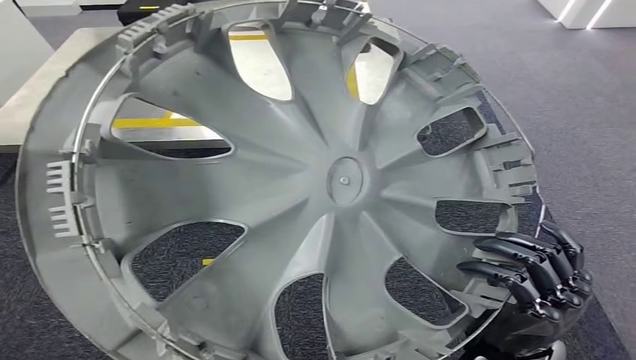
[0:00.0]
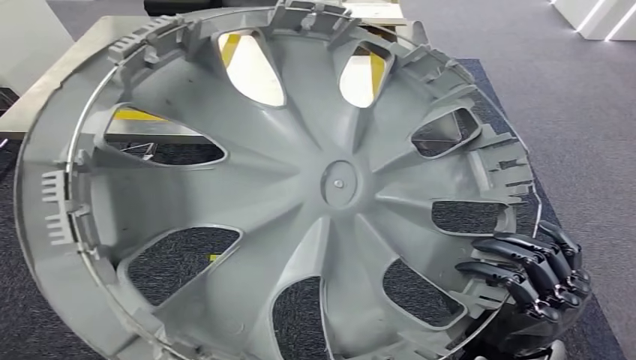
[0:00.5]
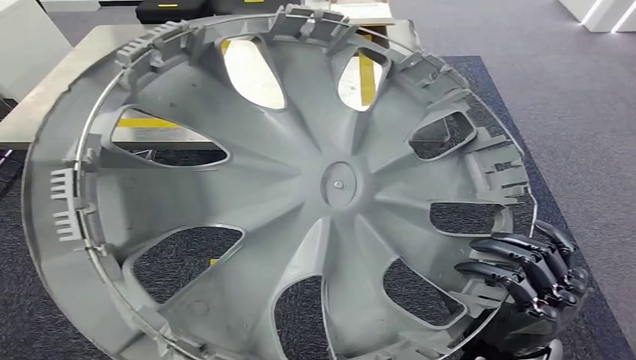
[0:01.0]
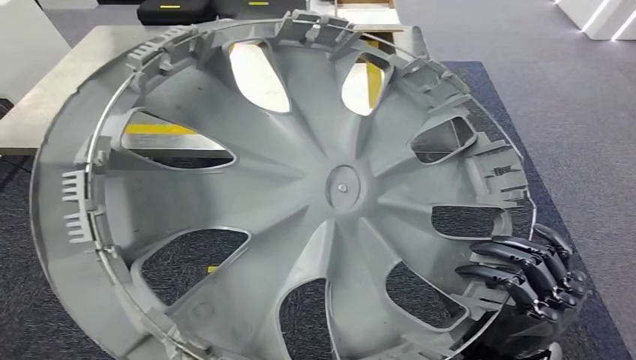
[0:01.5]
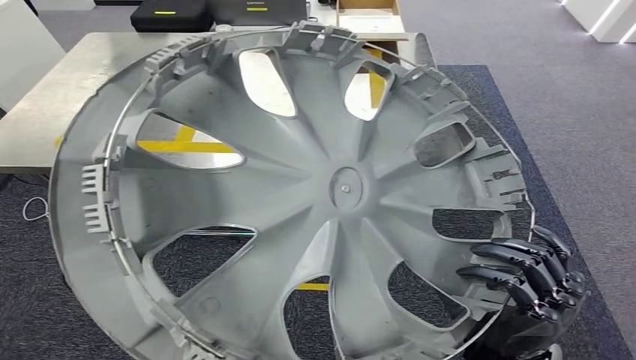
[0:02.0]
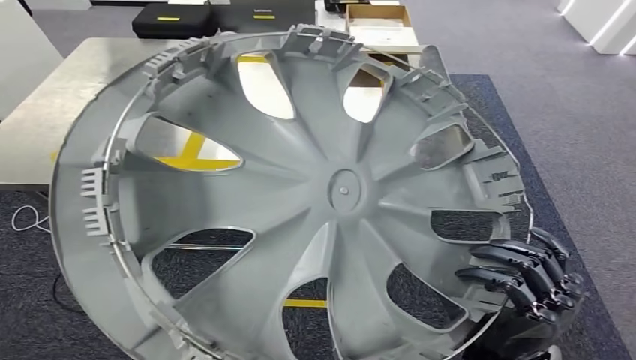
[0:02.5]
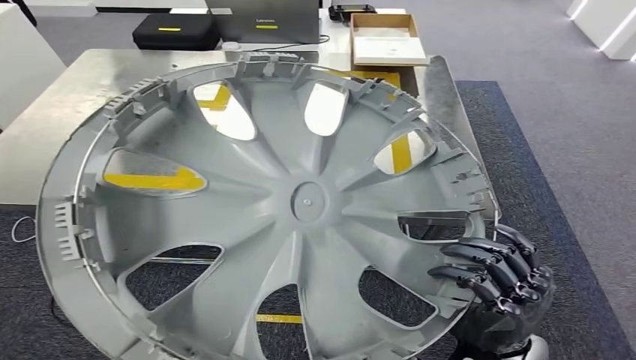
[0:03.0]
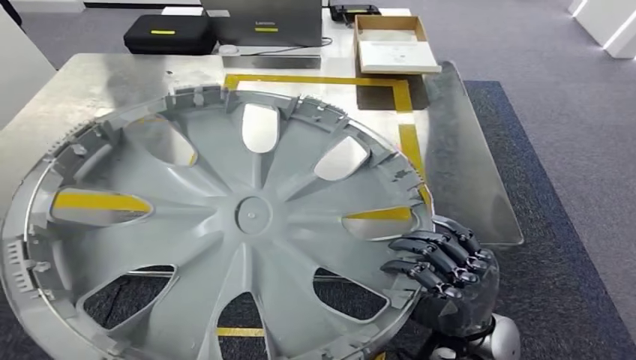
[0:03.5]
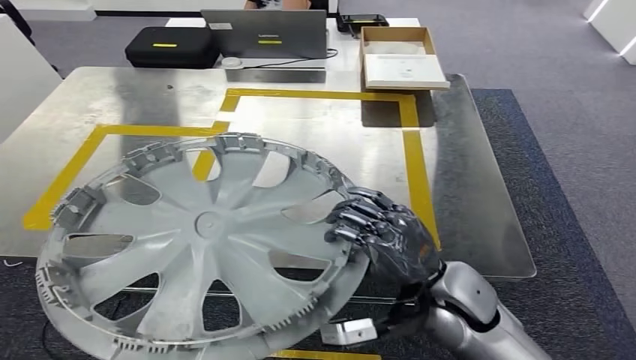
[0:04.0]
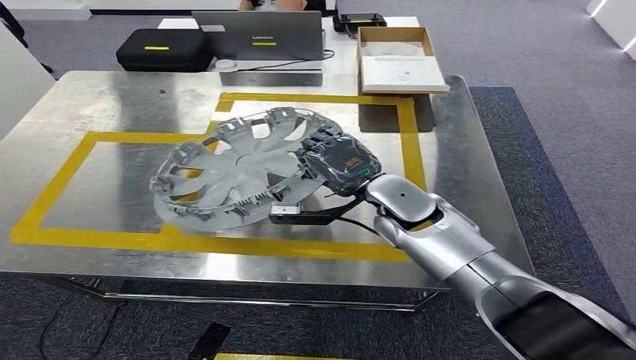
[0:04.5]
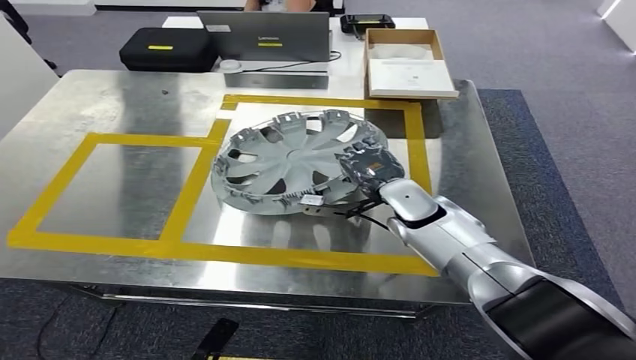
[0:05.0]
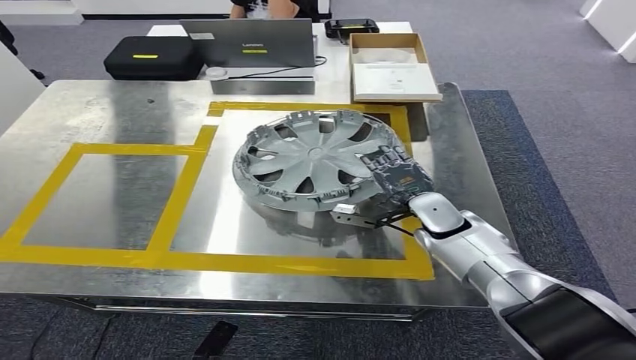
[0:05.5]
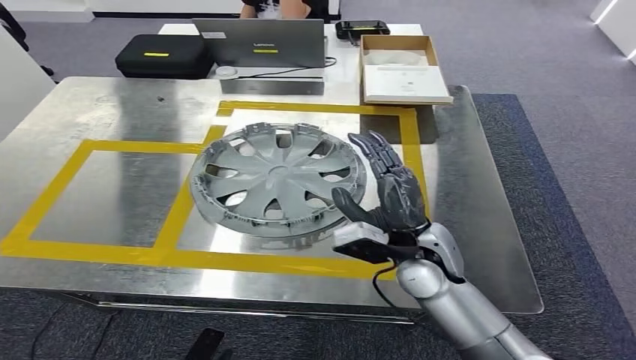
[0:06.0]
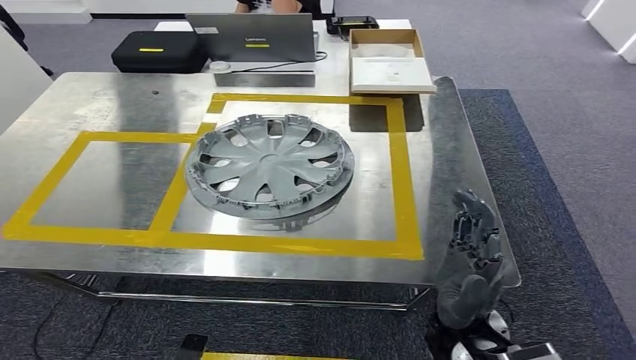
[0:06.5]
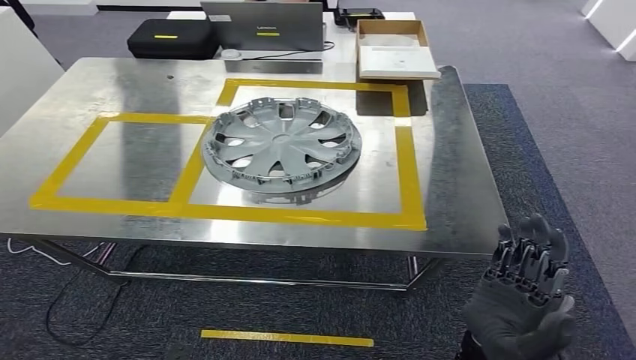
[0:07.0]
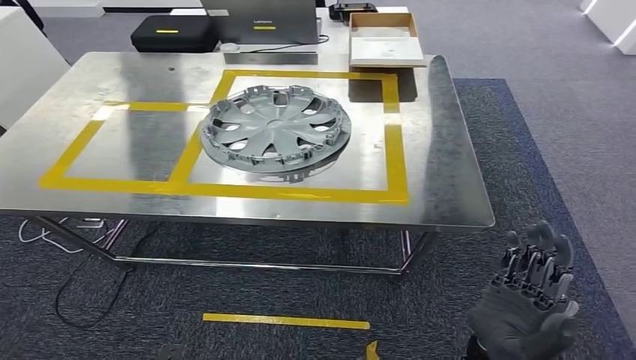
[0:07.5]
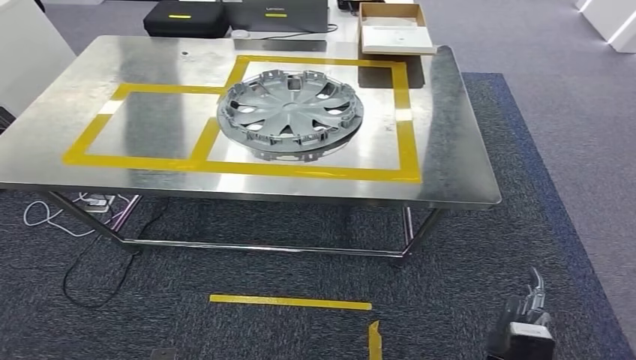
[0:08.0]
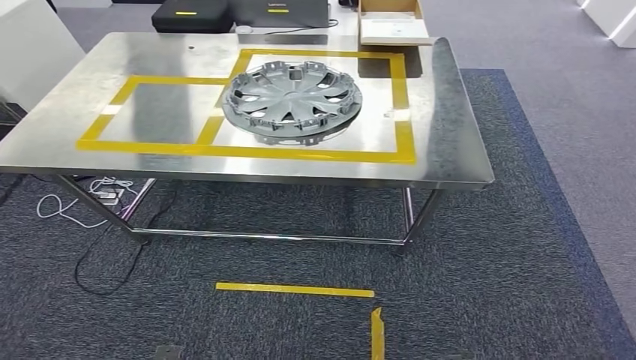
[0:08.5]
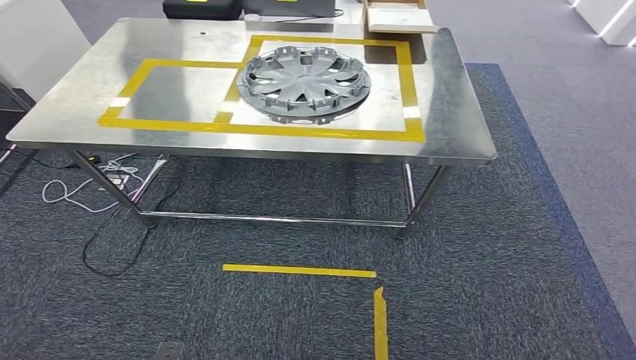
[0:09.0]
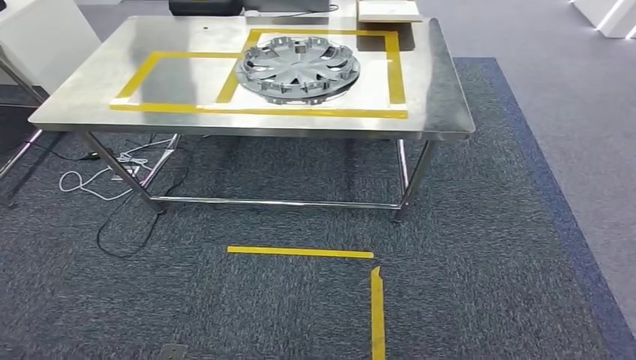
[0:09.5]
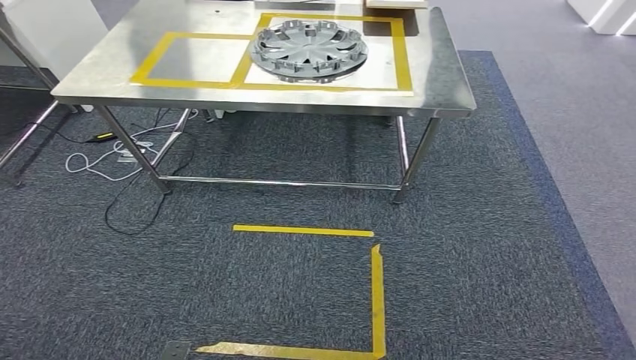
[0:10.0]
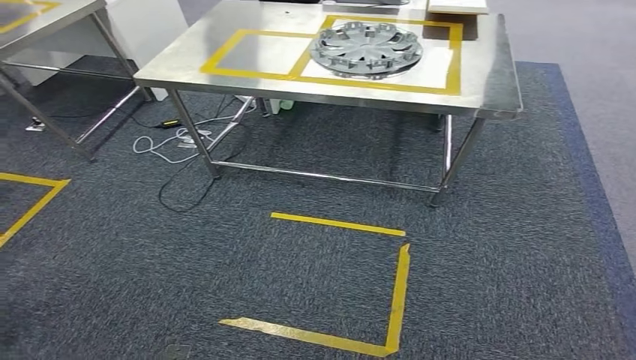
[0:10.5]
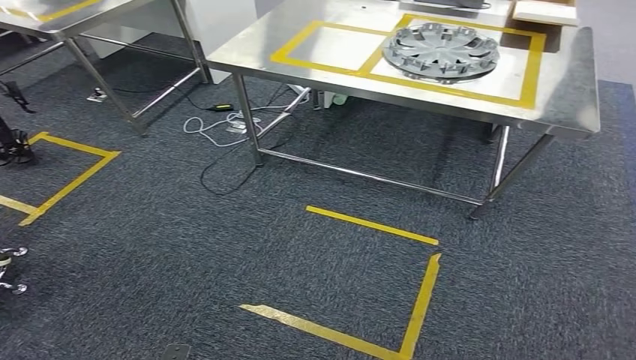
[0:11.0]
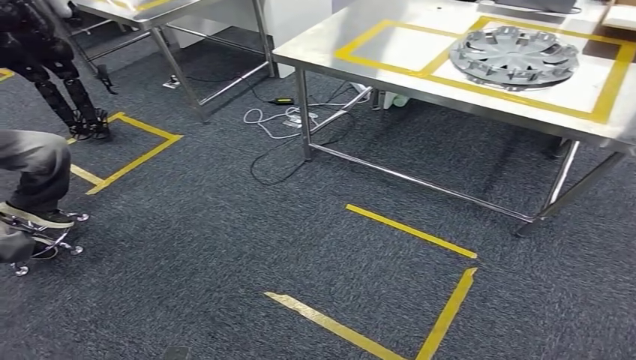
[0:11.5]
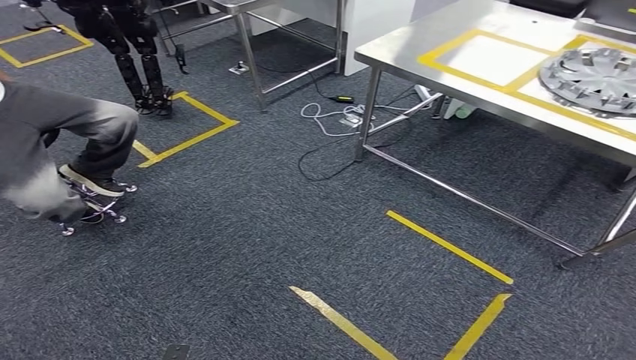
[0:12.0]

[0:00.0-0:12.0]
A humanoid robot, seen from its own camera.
Step, 0:00.0 to 0:02.5: Move the small component to the workbench.
Step, 0:03.0 to 0:07.0: Insert the small component into the corresponding slot on the workbench.

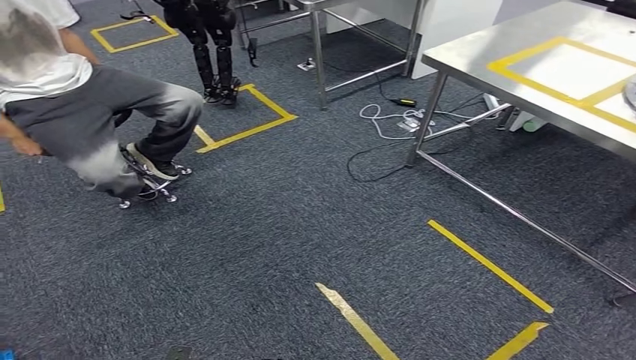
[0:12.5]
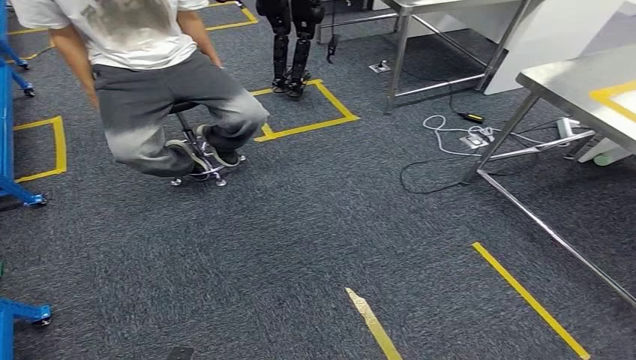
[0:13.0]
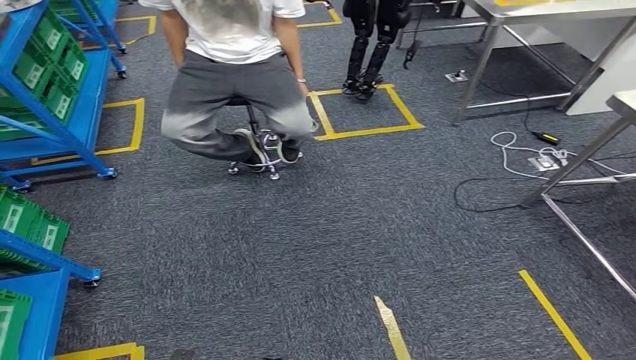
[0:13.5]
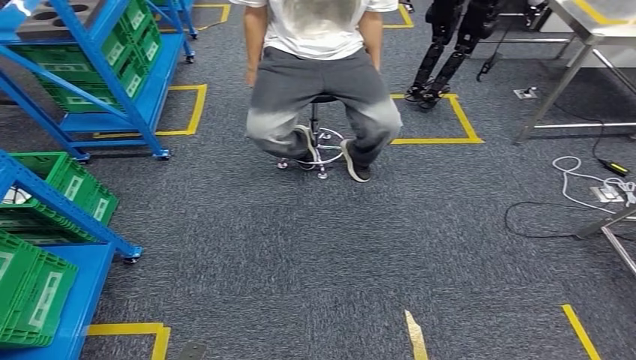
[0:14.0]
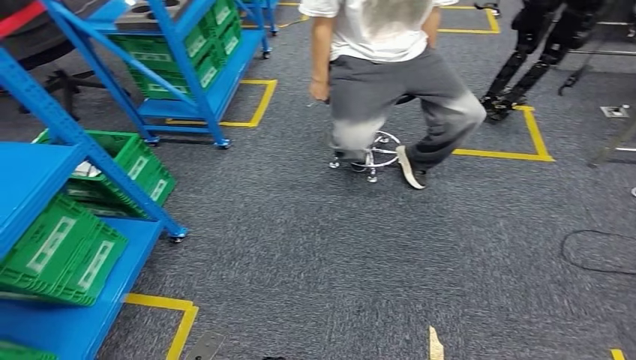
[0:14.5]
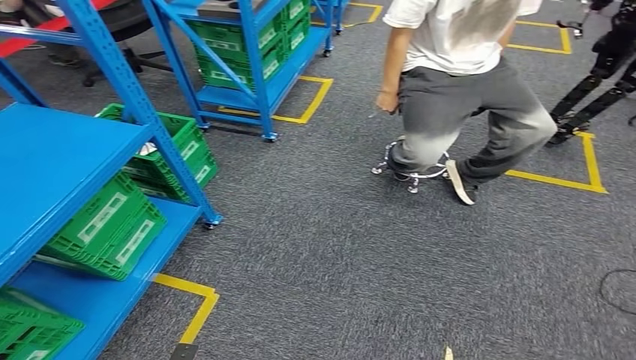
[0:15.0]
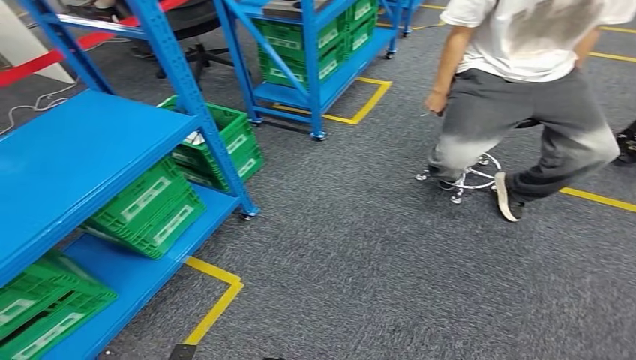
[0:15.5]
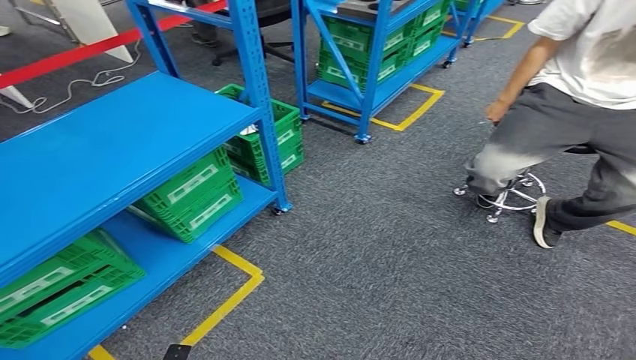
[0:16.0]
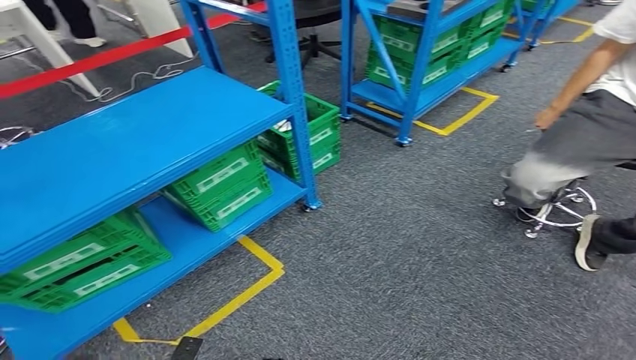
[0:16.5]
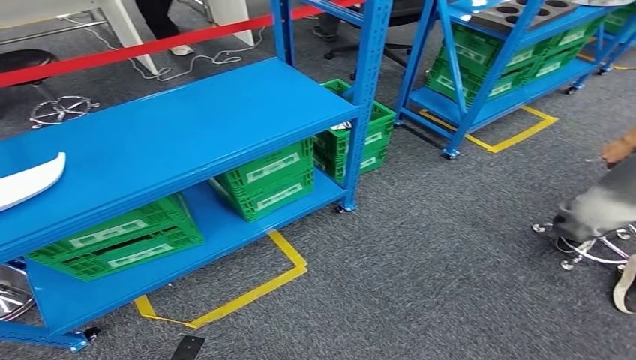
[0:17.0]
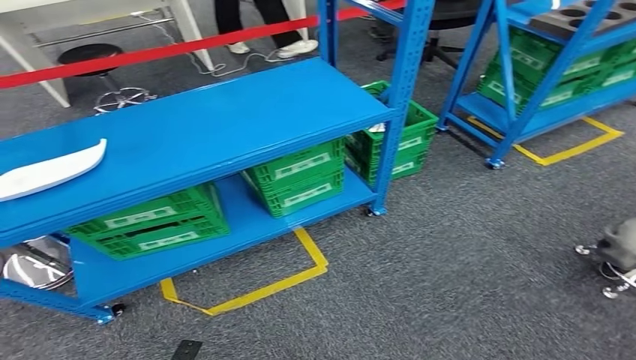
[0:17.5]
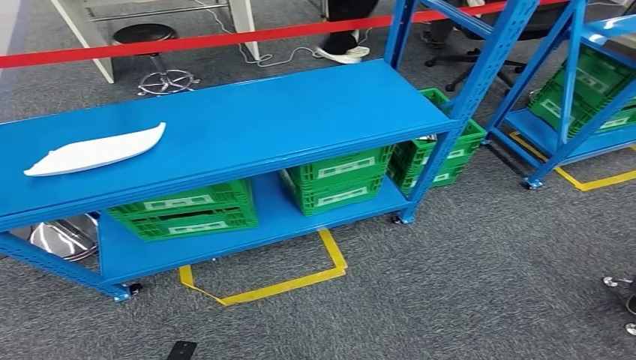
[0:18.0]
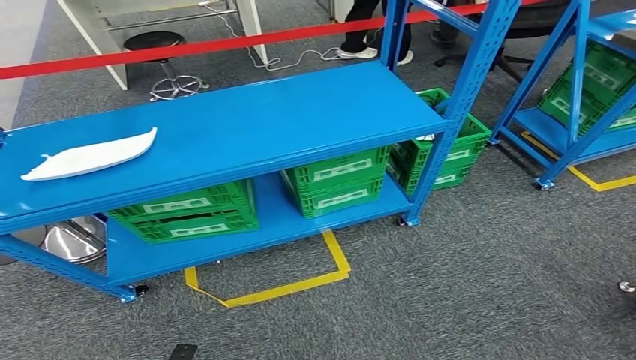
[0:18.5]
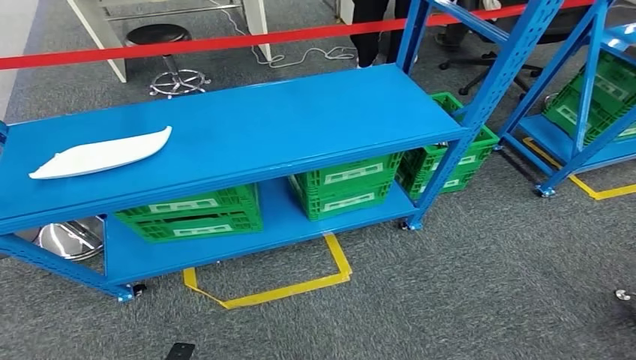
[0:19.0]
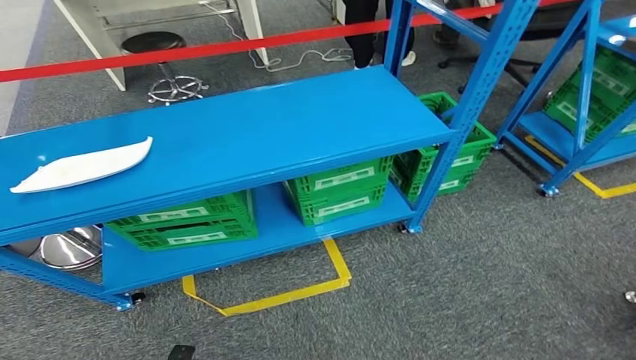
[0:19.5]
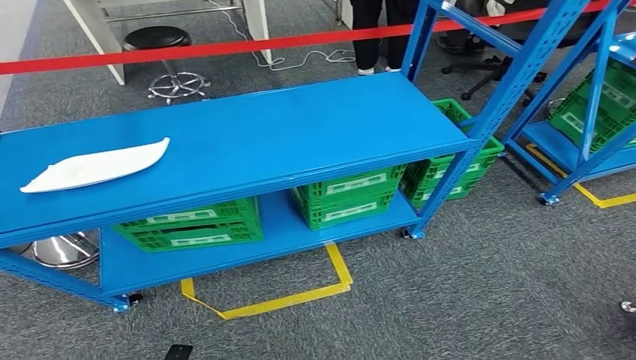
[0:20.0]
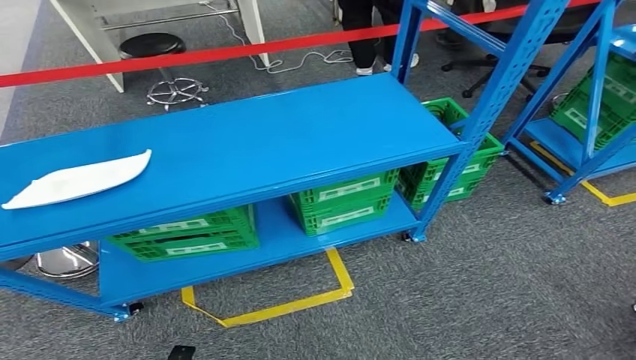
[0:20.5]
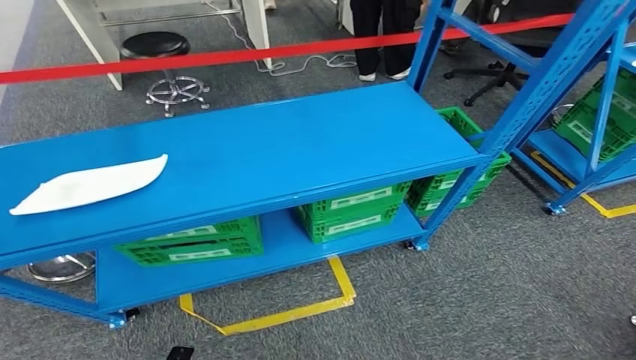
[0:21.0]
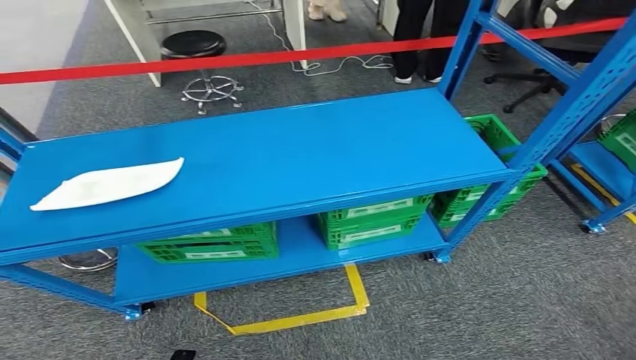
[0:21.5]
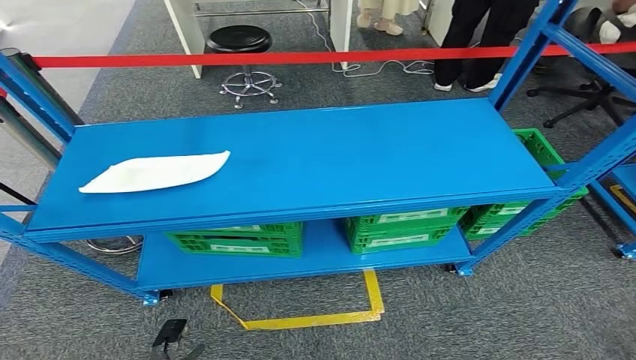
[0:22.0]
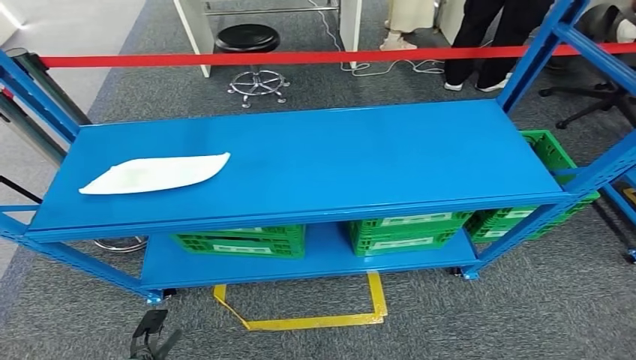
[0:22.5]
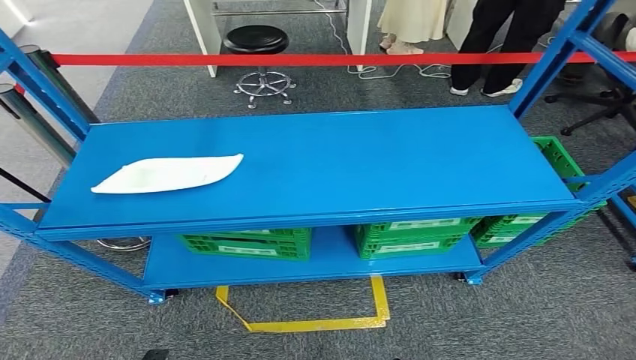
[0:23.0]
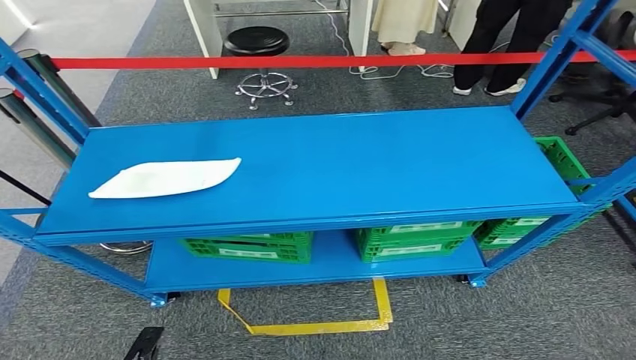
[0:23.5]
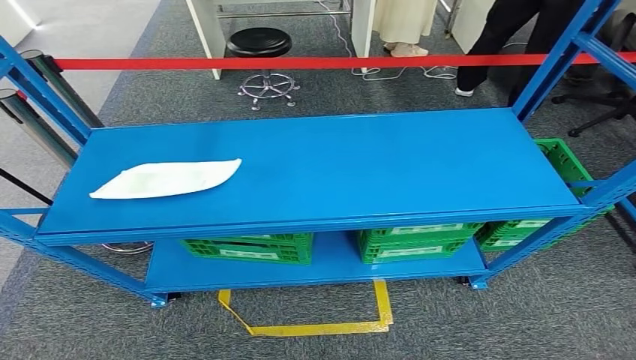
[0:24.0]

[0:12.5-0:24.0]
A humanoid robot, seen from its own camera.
Step, 0:12.5 to 0:24.0: Return to the initial position at the workbench.
